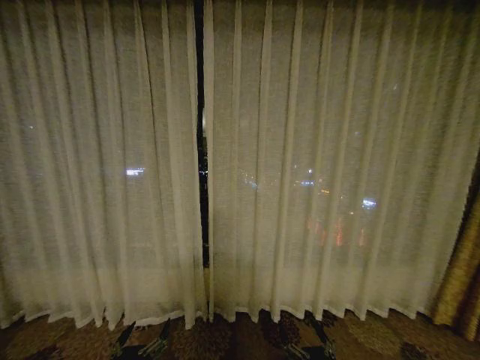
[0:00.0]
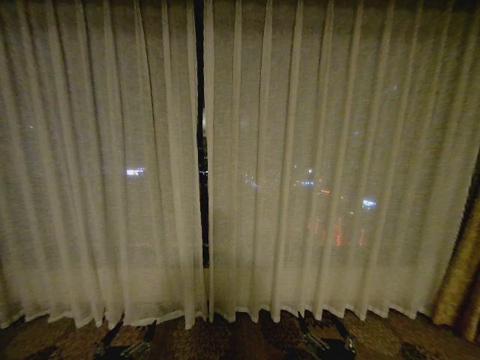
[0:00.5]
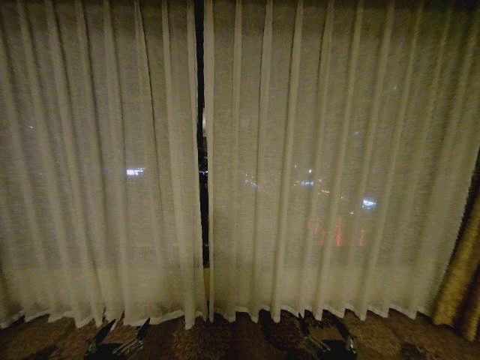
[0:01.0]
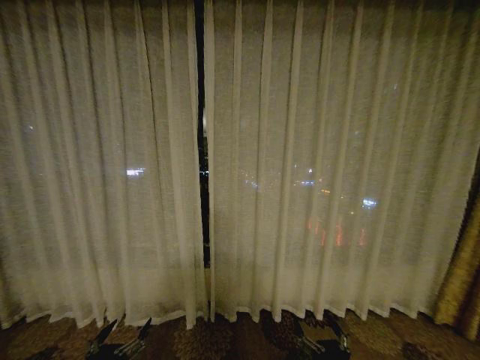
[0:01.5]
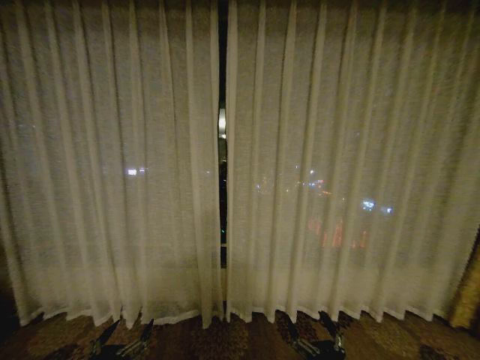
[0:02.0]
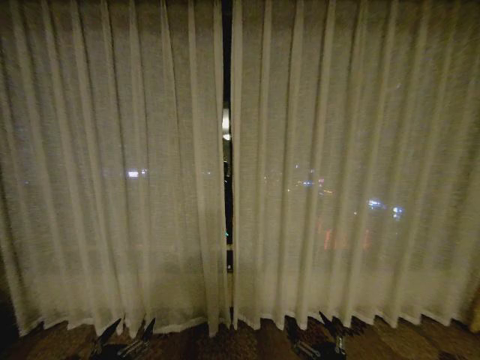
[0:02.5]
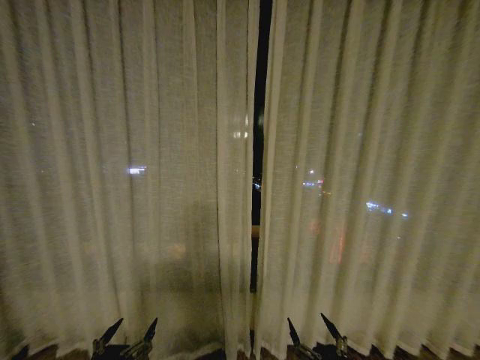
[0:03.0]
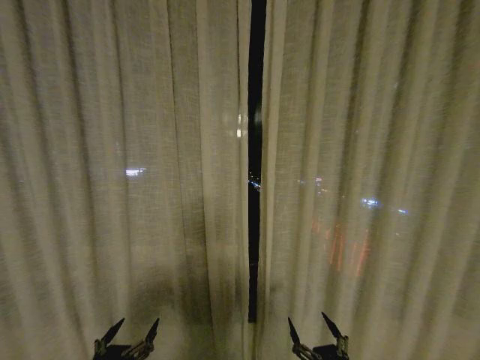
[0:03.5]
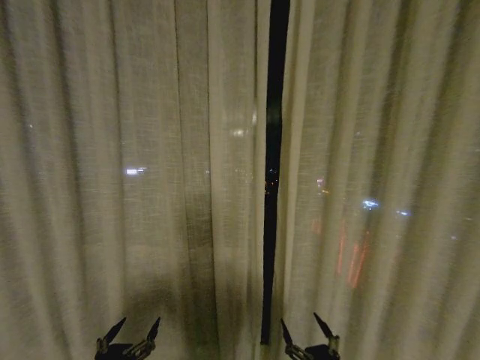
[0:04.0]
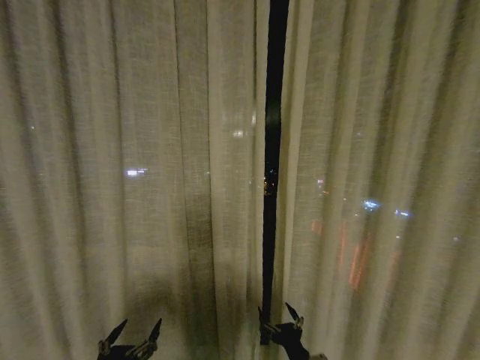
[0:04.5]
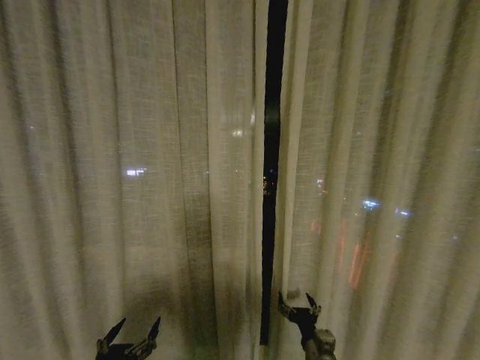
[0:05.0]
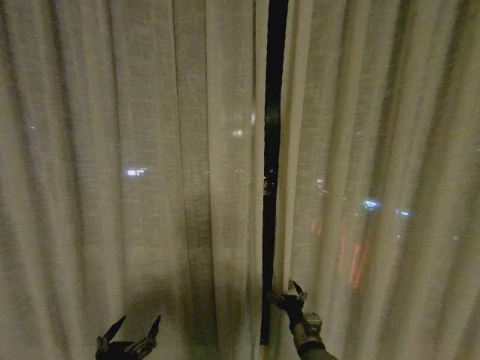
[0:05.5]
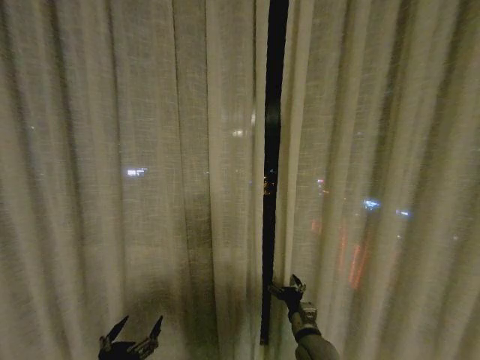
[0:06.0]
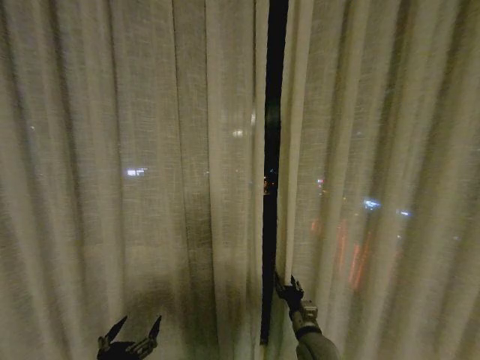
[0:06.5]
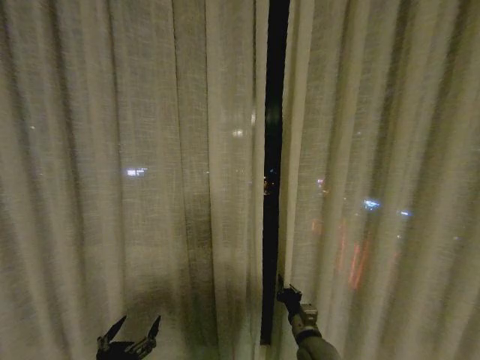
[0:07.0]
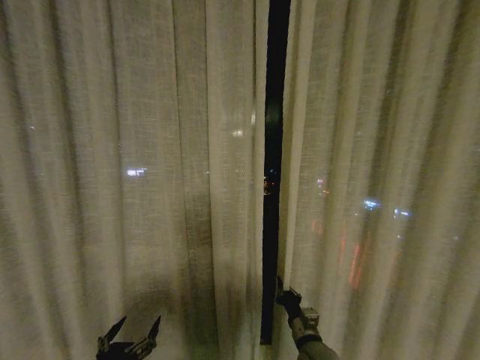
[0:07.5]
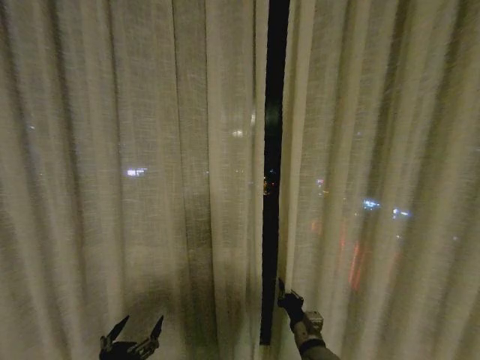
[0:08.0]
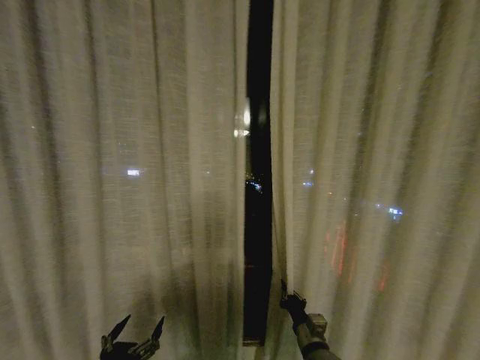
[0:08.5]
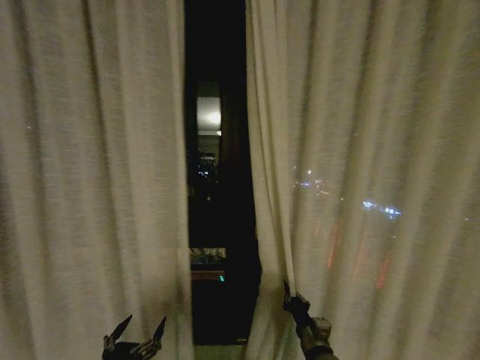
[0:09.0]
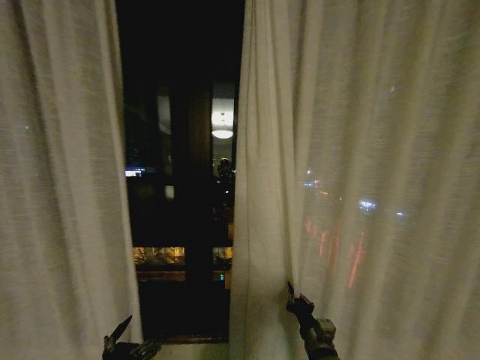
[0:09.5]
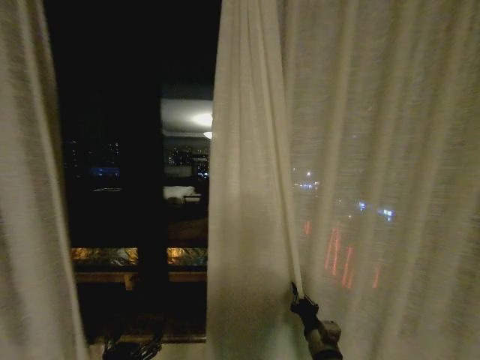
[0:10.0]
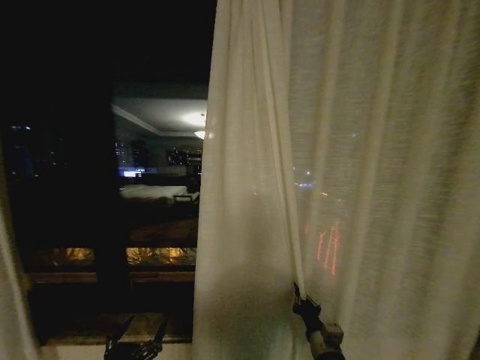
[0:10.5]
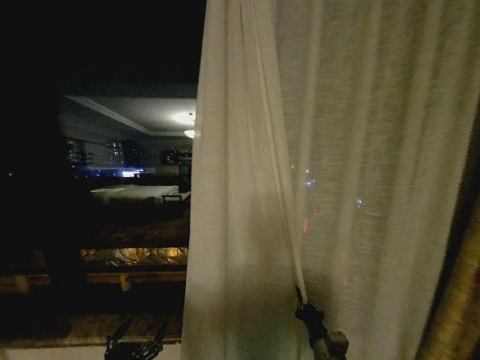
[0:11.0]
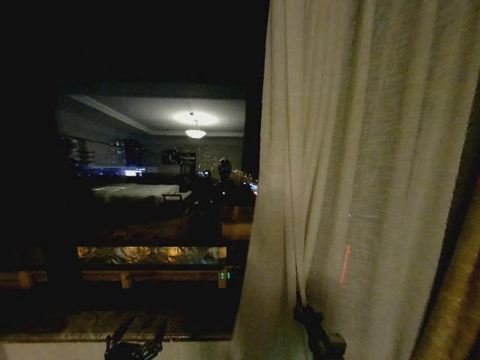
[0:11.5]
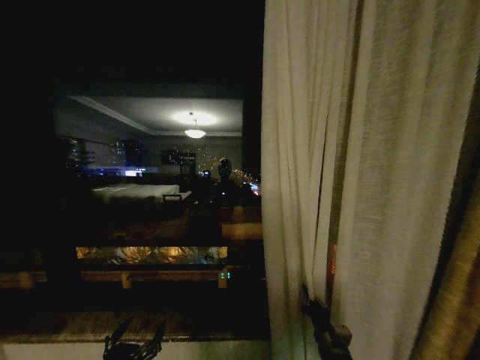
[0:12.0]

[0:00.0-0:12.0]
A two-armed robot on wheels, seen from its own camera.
Task of the whole recording: Open the curtains by pulling them apart, changing their state from closed to fully open.
0:04.0 to 0:06.0: The right gripper is displaced forward by roughly 20 cm.
0:06.0 to 0:08.0: The right gripper closes.

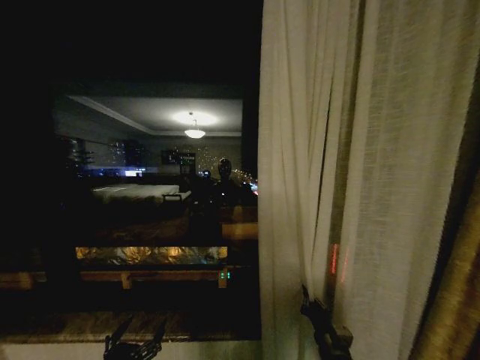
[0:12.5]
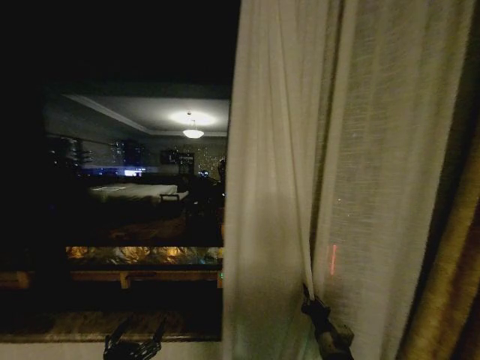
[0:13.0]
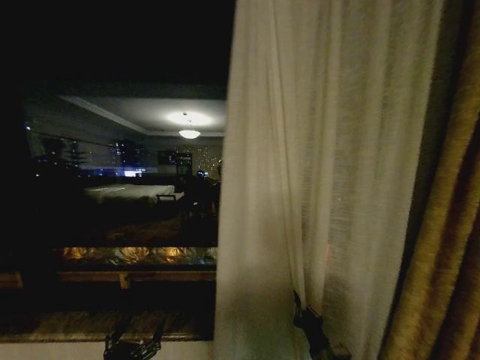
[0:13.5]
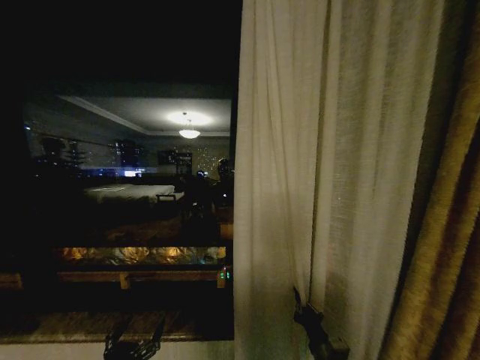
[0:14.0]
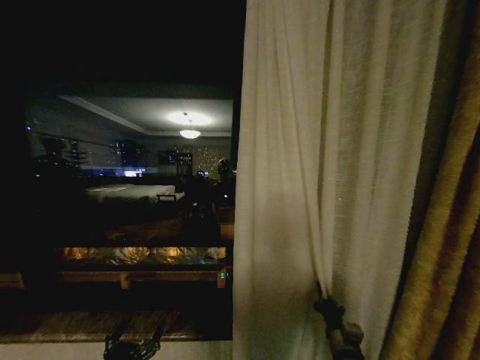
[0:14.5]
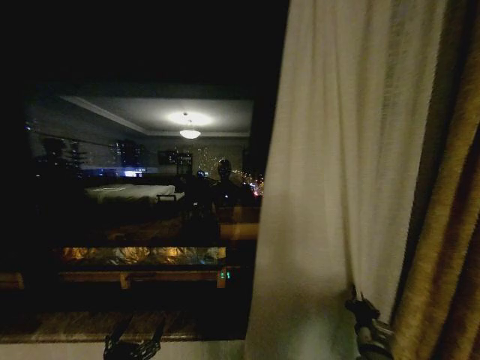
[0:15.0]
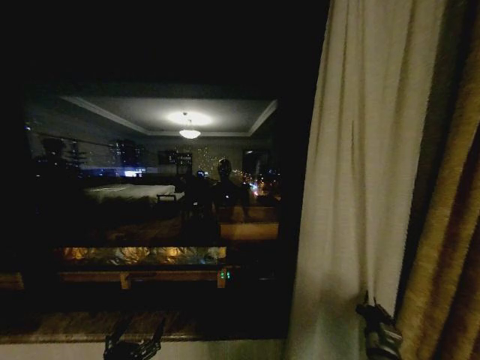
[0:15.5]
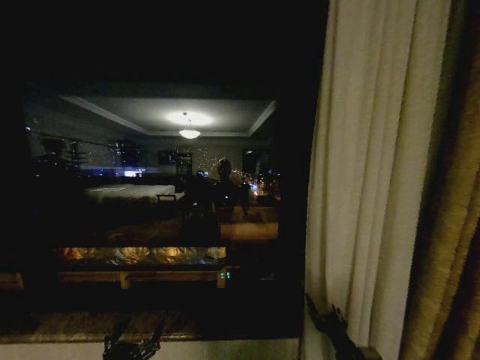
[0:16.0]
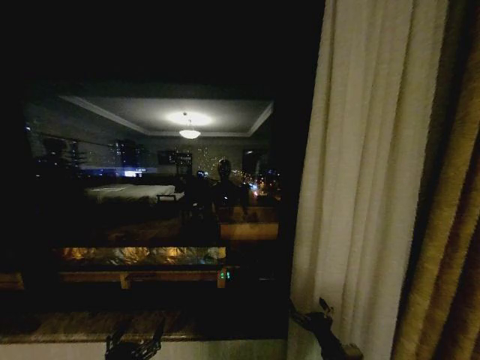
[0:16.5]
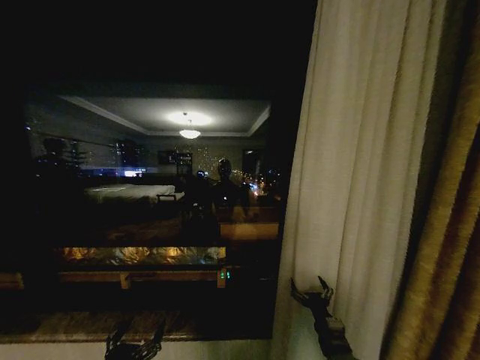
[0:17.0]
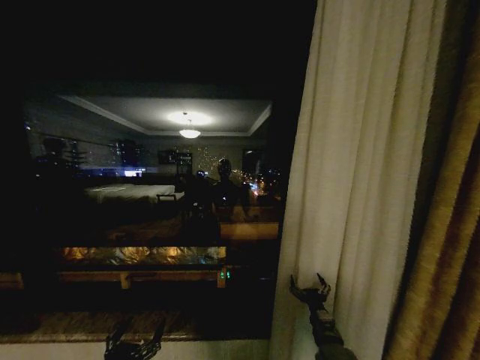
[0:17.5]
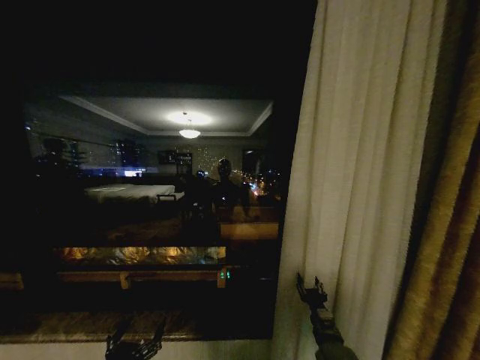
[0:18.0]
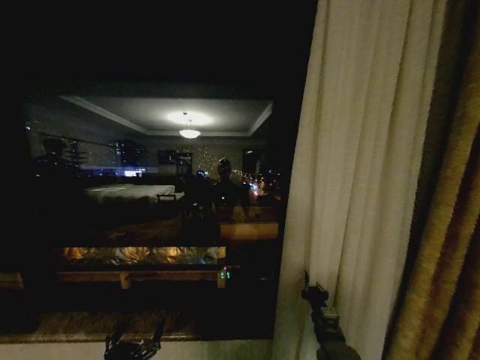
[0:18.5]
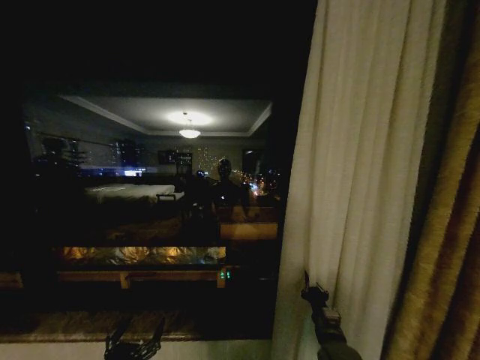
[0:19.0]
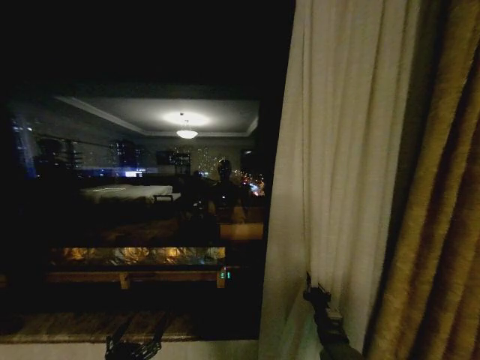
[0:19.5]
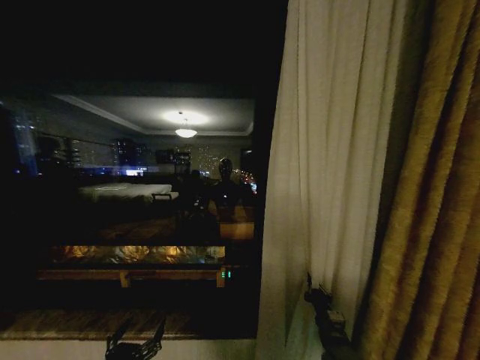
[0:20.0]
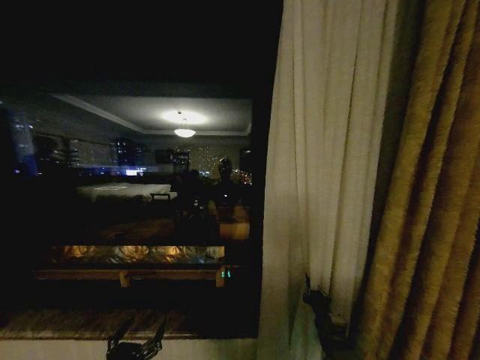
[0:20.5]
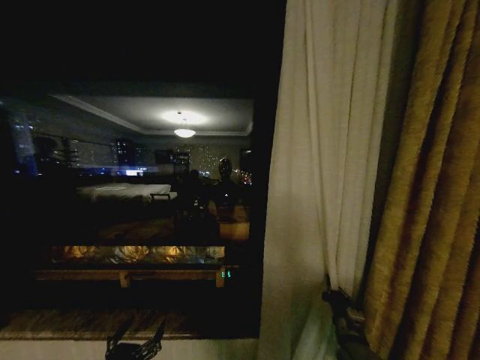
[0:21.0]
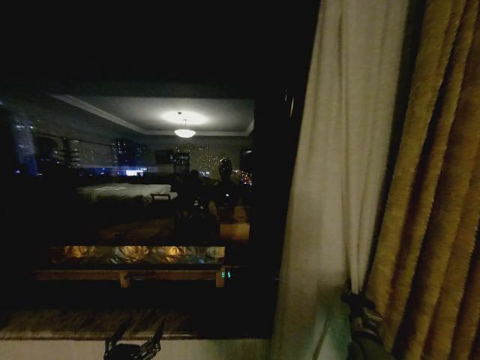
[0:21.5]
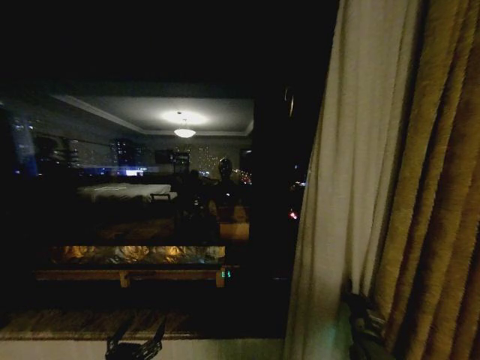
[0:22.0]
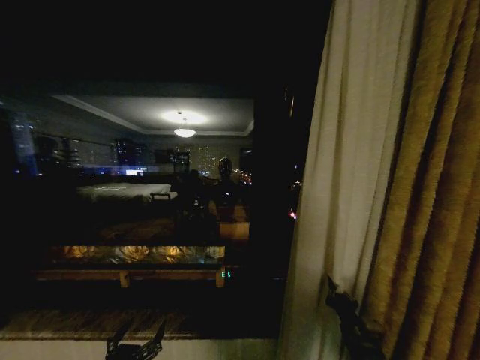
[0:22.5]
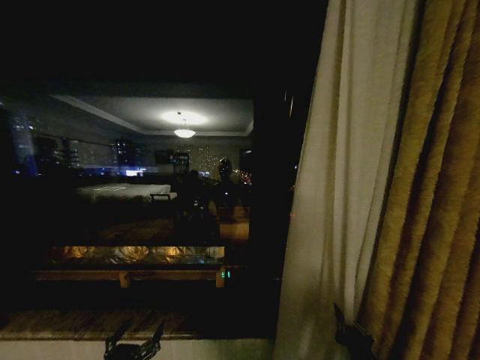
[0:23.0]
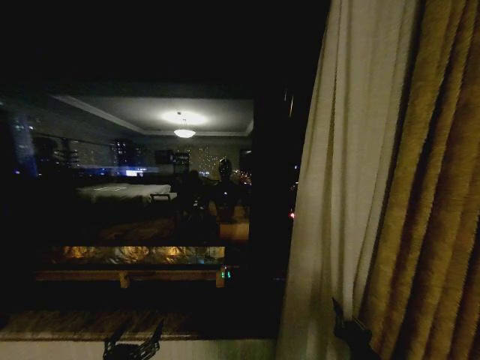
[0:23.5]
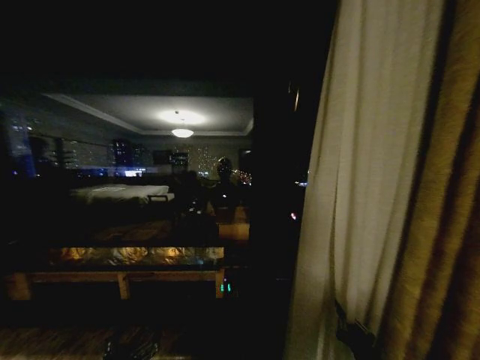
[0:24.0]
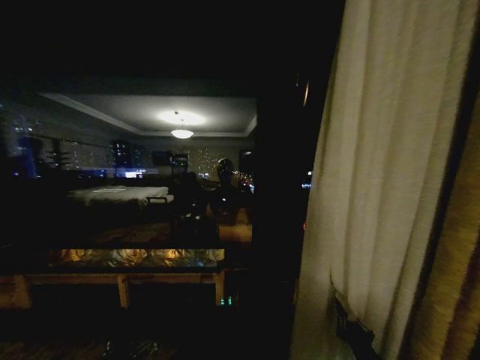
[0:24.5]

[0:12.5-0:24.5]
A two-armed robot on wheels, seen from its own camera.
Task of the whole recording: Open the curtains by pulling them apart, changing their state from closed to fully open.
0:14.5 to 0:16.5: The right gripper moves backward, some 5 cm, goes to the right and returns, about 10 cm each way, and opens its fingers.
0:16.5 to 0:18.5: The right gripper heads forward, covering roughly 10 cm, and closes its fingers.
0:20.5 to 0:22.5: The right gripper heads to the right, covering roughly 5 cm.
0:22.5 to 0:24.5: The right gripper travels backward by roughly 10 cm.

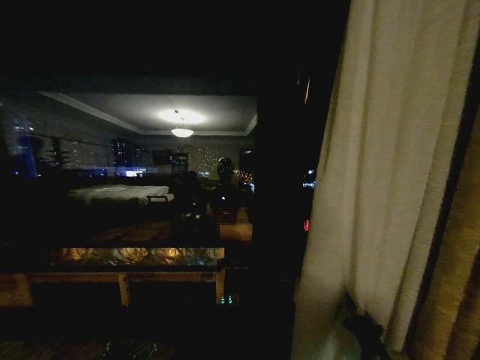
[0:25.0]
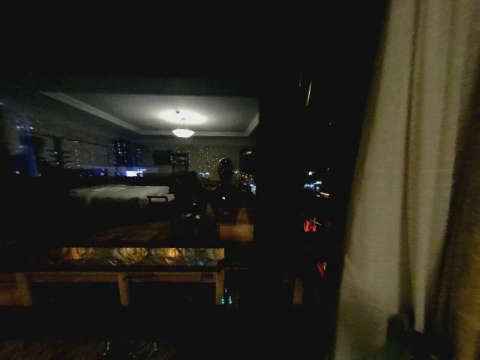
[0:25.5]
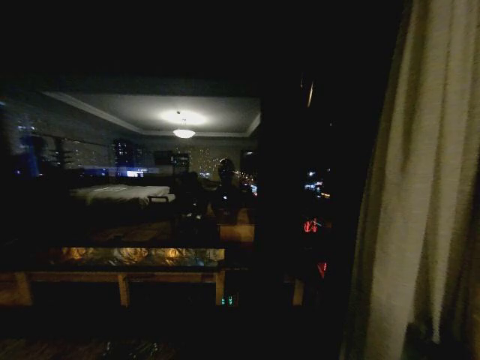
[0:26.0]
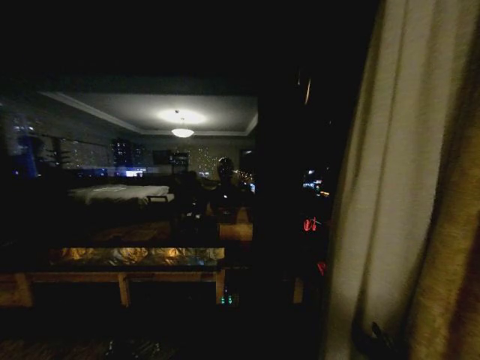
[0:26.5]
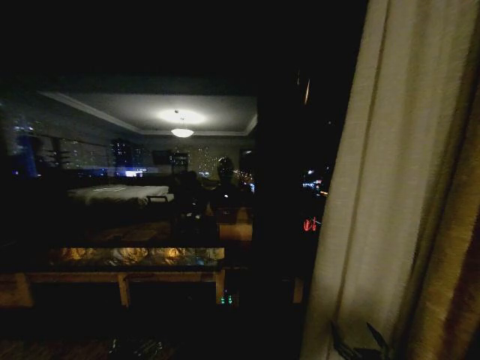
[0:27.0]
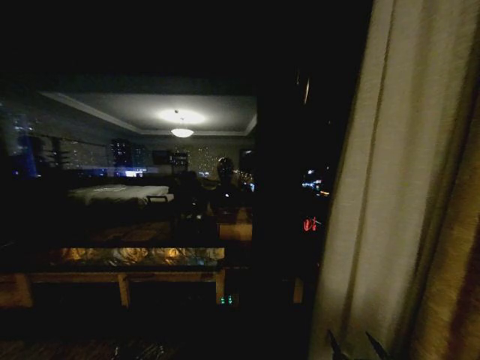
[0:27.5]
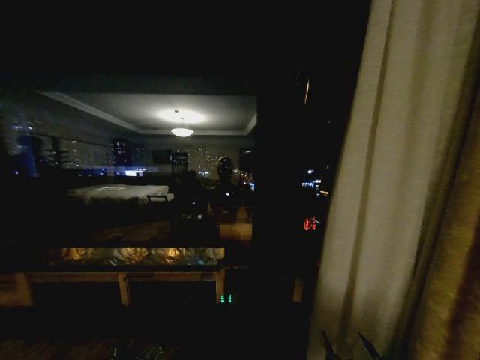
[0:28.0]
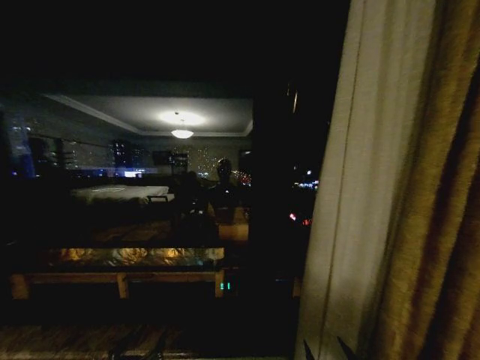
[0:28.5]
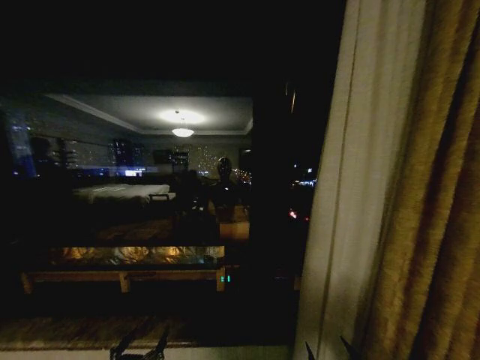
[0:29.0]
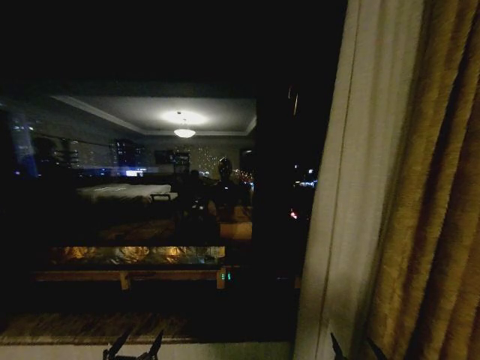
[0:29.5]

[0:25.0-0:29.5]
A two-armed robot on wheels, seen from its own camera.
Task of the whole recording: Open the curtains by pulling them apart, changing their state from closed to fully open.
0:25.0 to 0:27.0: The right gripper travels backward by approximately 5 cm, goes to the right and returns, roughly 15 cm each way, and opens.
